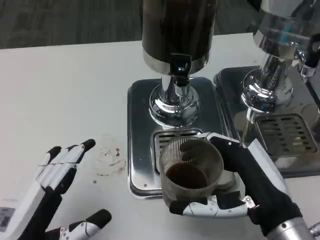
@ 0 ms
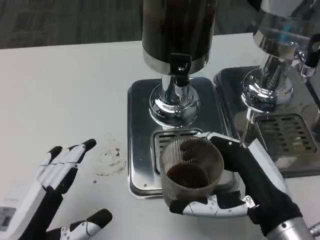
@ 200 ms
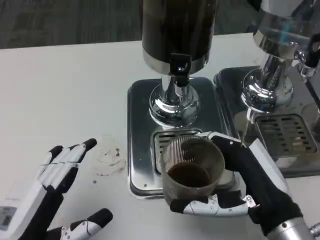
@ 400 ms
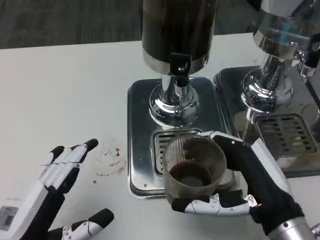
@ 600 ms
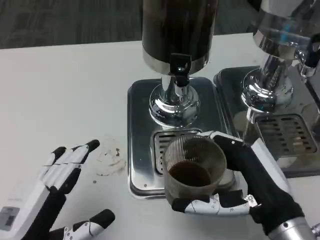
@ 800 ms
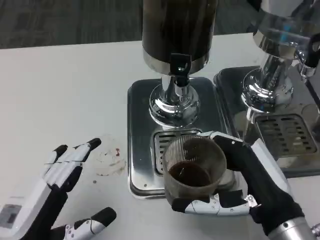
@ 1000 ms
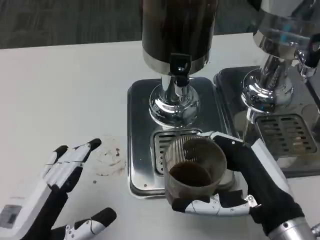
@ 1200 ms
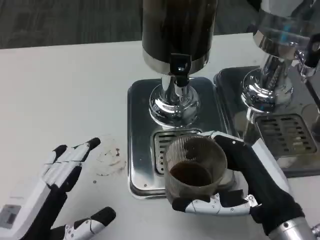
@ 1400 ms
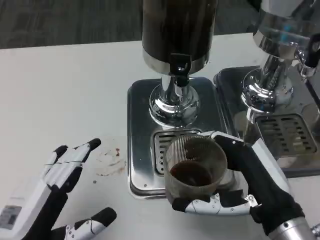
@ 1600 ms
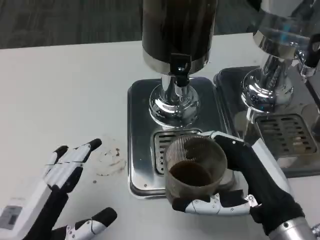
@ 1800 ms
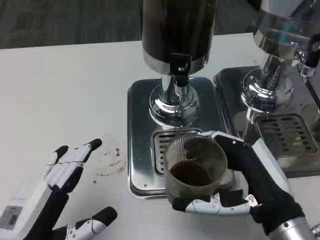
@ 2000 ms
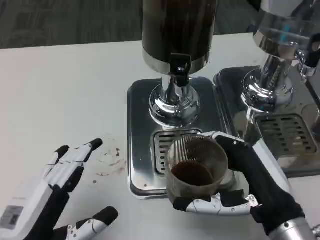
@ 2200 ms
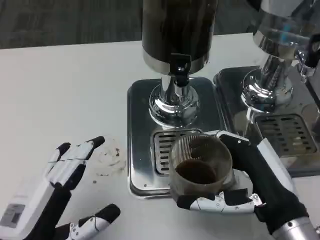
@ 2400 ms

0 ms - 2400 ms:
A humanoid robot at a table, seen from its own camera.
Task of the whole recording: Grasp the cup under the faucet to collect the drink, then remove the cup.
0 ms - 2400 ms: Both hands stay about where they are.

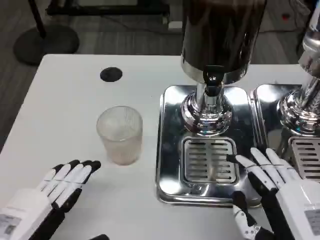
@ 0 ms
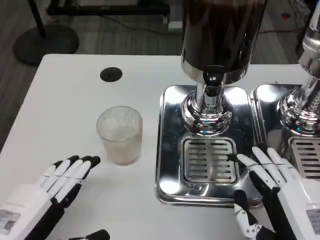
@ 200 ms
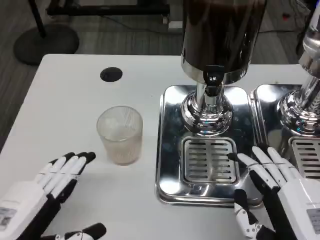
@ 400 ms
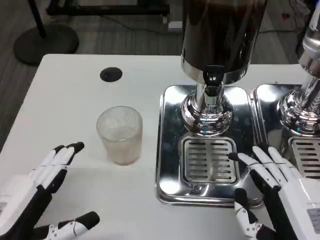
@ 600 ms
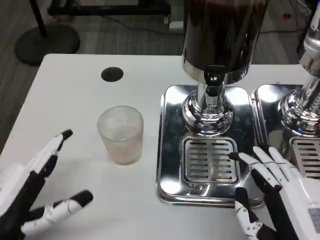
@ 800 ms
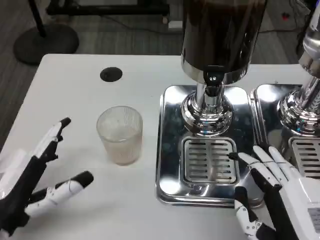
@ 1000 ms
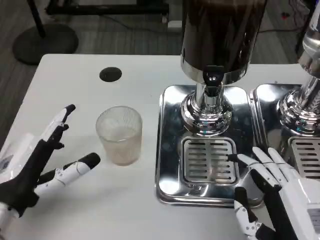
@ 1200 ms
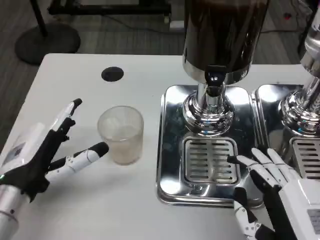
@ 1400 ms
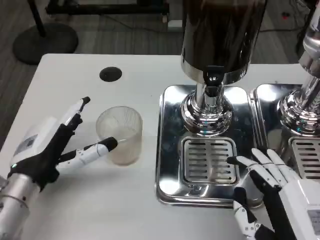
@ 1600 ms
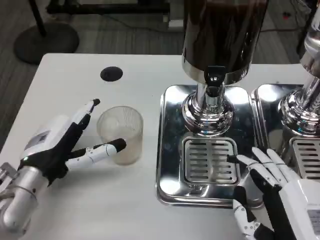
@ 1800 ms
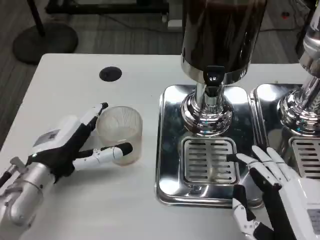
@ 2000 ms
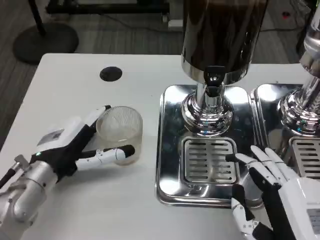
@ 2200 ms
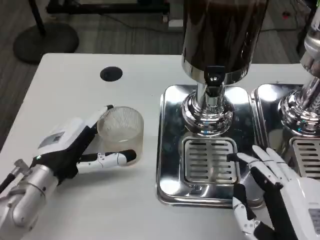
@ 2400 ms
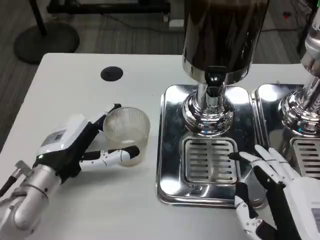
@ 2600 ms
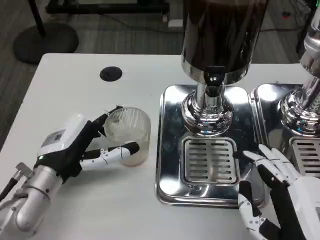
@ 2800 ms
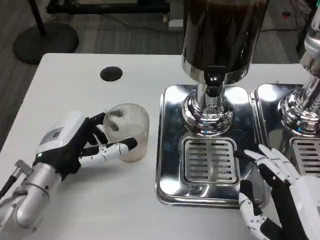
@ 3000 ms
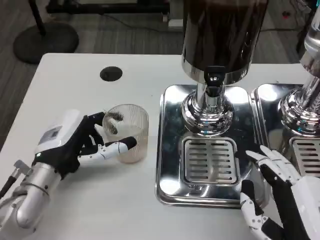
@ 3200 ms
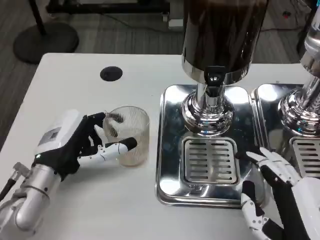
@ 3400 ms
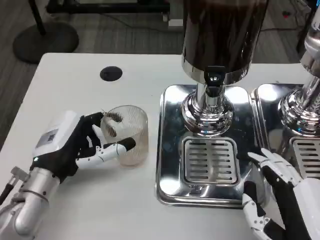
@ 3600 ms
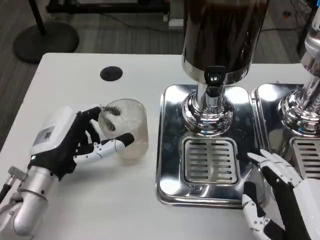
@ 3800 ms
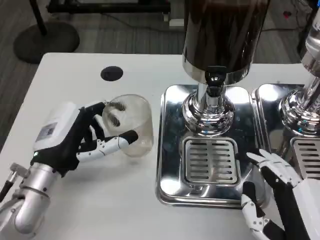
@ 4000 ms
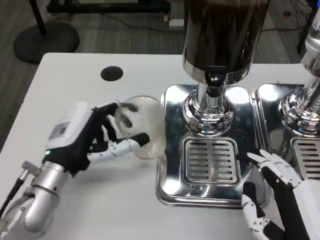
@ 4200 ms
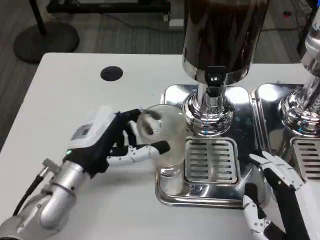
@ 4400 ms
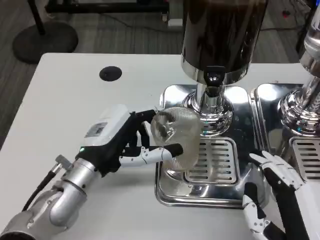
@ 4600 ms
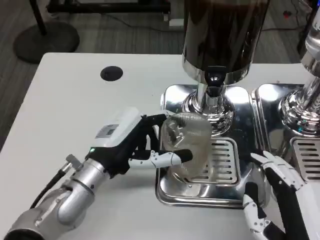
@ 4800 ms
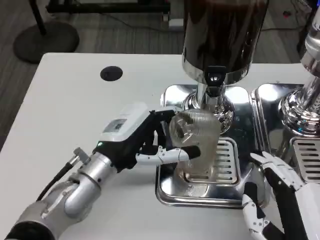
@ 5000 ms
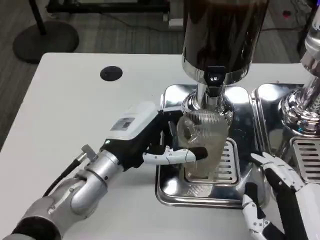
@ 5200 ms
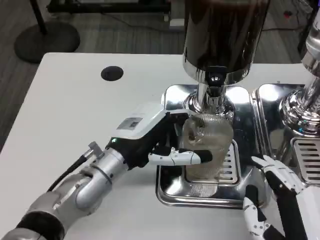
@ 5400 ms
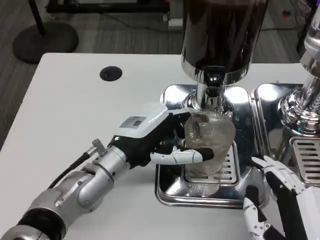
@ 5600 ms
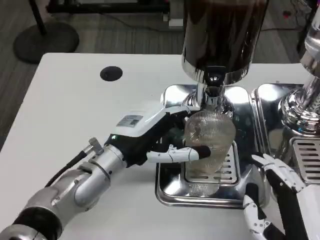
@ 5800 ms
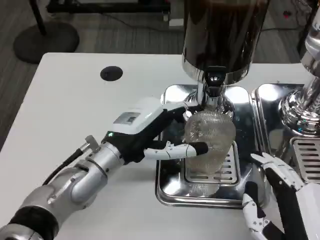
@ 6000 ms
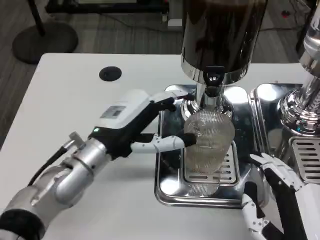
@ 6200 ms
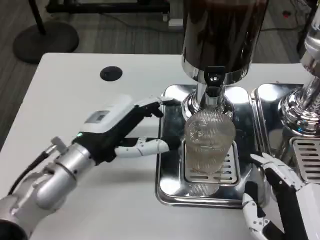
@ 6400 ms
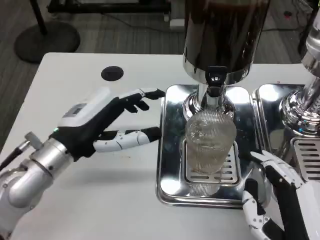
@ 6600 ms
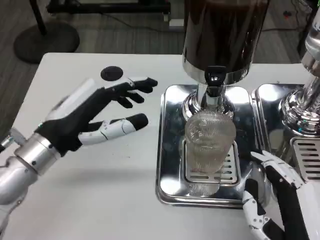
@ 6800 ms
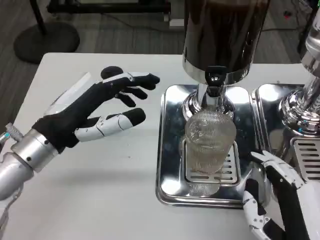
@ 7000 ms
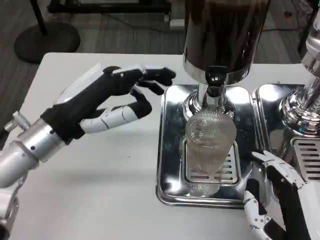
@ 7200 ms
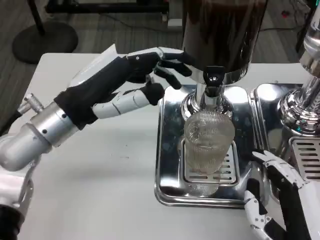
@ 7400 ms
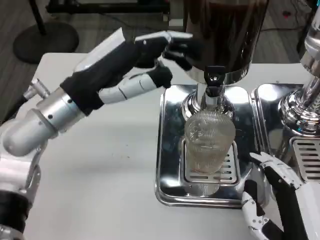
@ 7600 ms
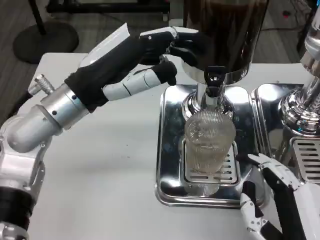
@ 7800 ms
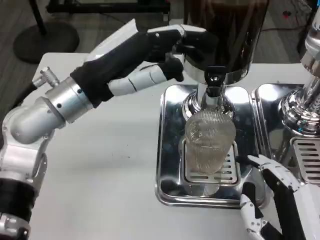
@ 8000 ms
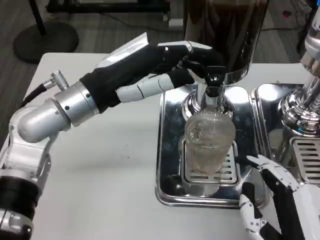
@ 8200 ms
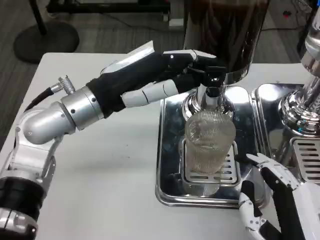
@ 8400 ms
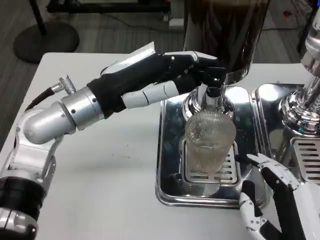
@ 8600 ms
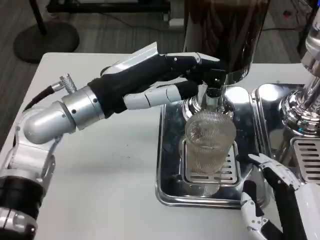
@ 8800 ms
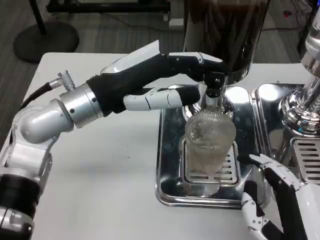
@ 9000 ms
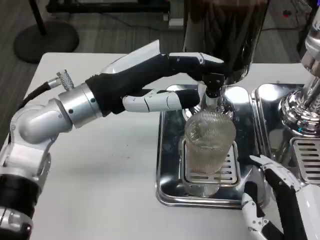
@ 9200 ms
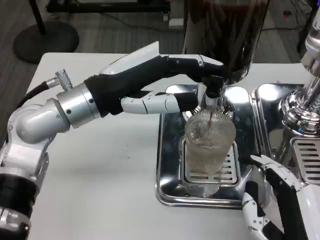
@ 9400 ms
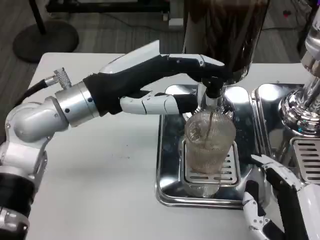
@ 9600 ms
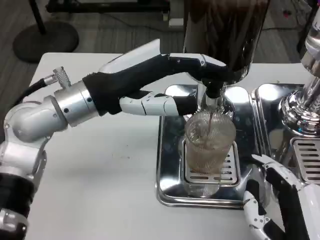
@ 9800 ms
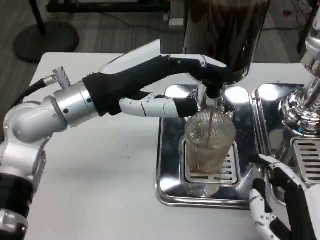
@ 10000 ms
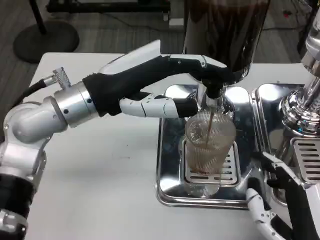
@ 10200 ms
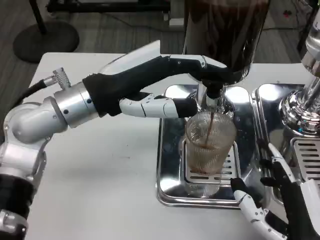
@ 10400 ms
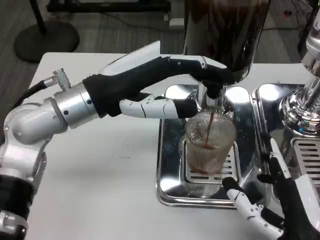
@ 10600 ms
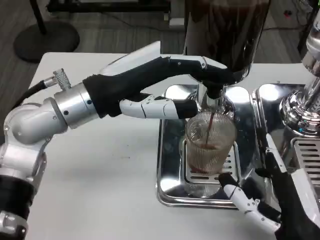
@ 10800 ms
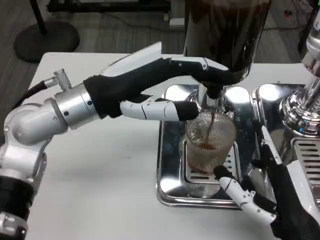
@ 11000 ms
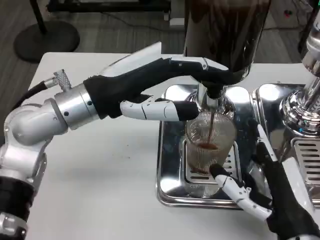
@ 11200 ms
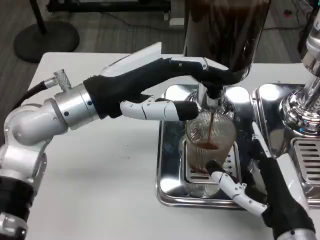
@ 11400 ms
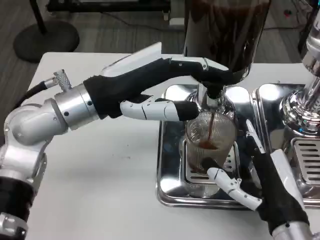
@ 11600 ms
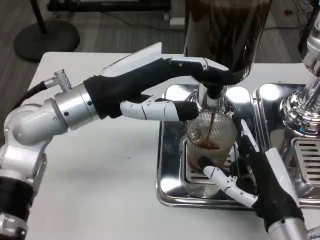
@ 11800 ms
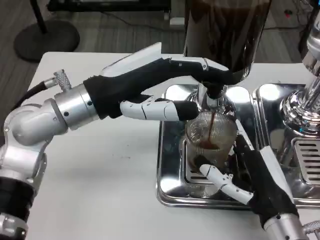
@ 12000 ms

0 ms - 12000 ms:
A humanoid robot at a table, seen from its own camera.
Task of the whole recording: Grasp the cup under the faucet to collect the drink, then remove the cup.
0 ms - 1600 ms: The left hand moves forward, roughly 10 cm.
1600 ms - 3000 ms: The hands make only small movements.
4400 ms - 6000 ms: The left hand changes place by some 5 cm.
6000 ms - 7600 ms: The left hand is displaced upward by roughly 10 cm.
9000 ms - 10400 ms: The hands stay close to where they were, moving slightly.
10400 ms - 12000 ms: The right hand moves forward, approximately 5 cm.

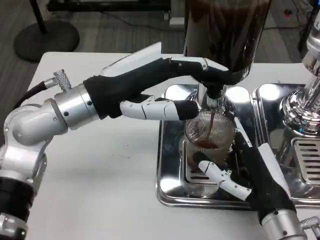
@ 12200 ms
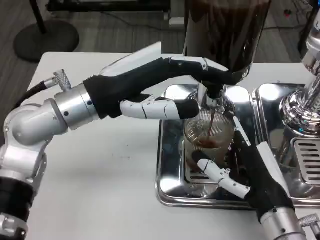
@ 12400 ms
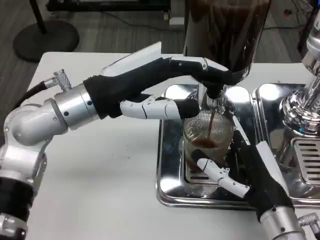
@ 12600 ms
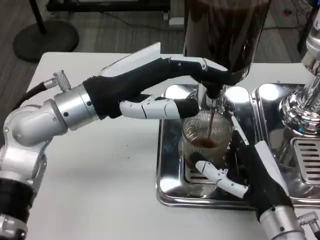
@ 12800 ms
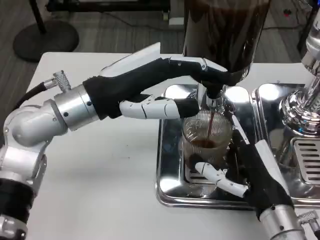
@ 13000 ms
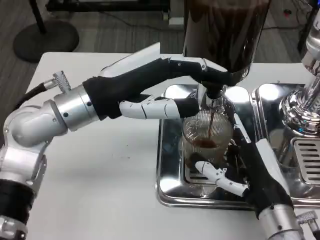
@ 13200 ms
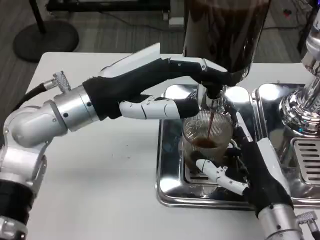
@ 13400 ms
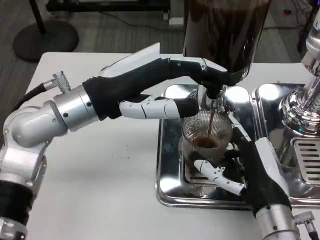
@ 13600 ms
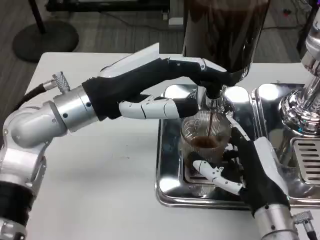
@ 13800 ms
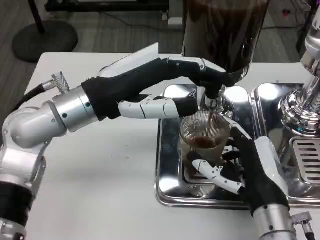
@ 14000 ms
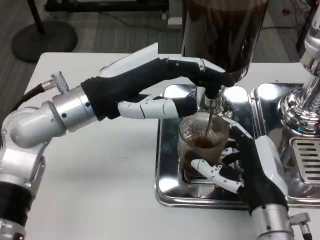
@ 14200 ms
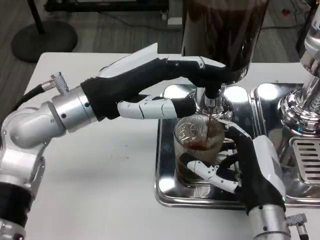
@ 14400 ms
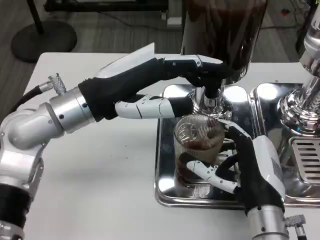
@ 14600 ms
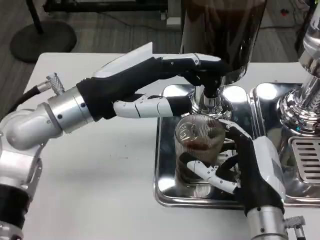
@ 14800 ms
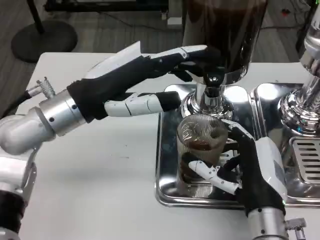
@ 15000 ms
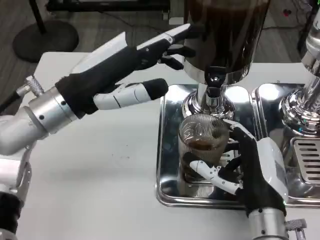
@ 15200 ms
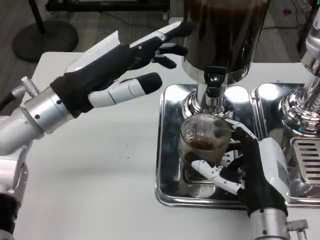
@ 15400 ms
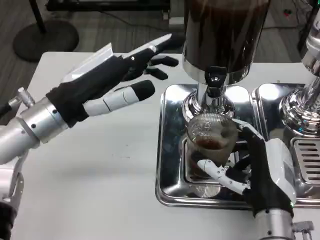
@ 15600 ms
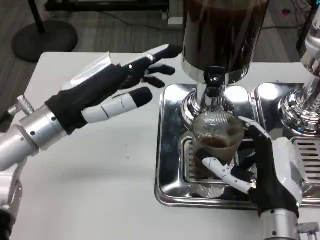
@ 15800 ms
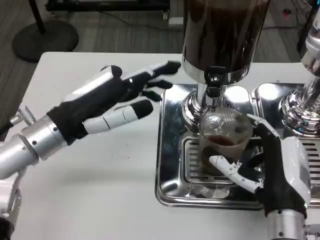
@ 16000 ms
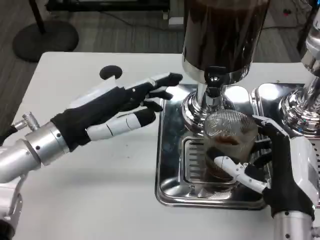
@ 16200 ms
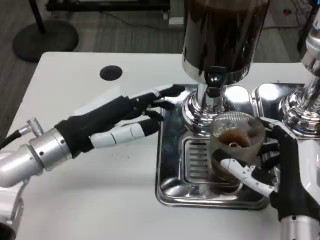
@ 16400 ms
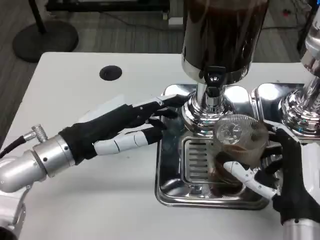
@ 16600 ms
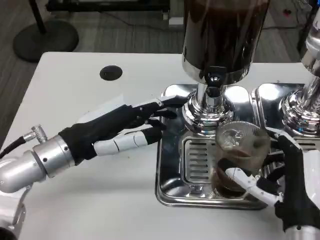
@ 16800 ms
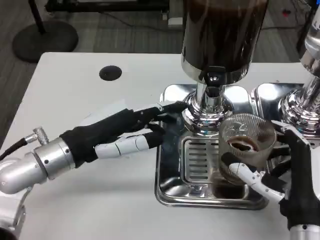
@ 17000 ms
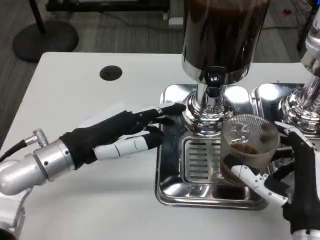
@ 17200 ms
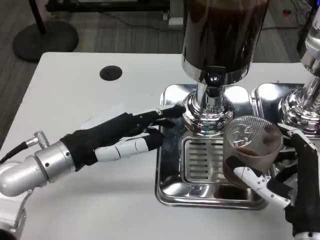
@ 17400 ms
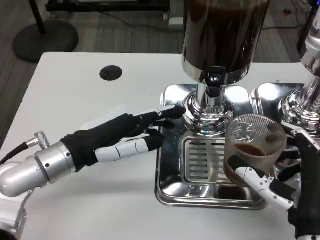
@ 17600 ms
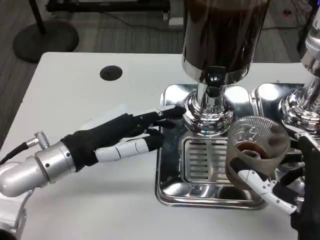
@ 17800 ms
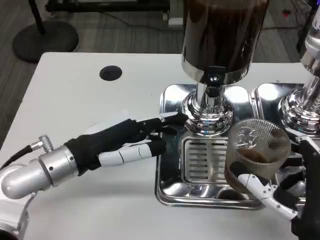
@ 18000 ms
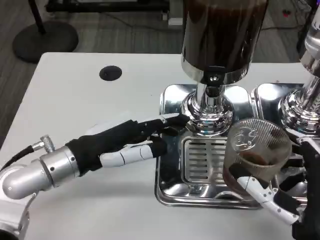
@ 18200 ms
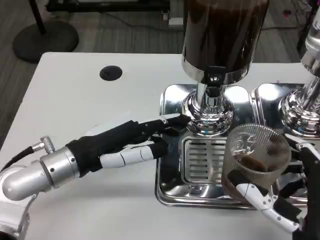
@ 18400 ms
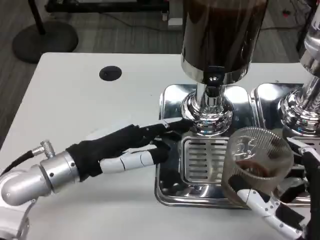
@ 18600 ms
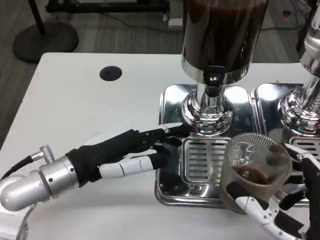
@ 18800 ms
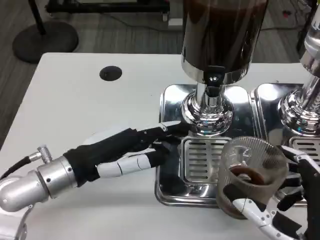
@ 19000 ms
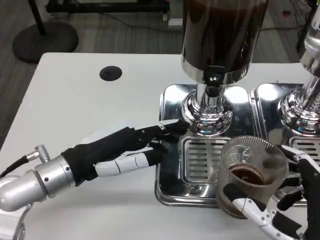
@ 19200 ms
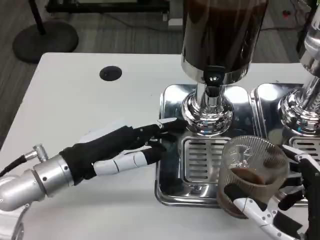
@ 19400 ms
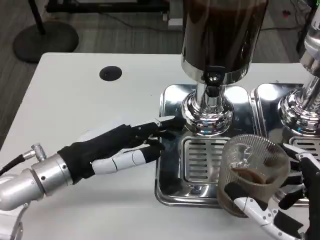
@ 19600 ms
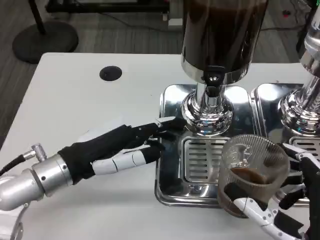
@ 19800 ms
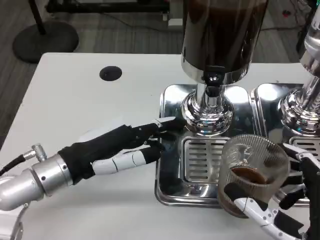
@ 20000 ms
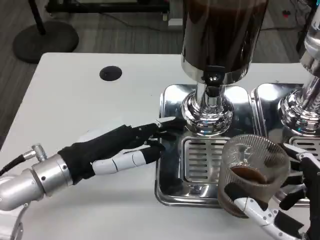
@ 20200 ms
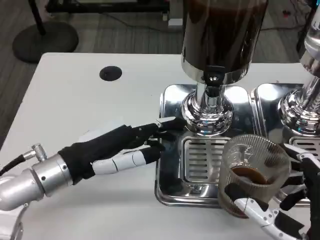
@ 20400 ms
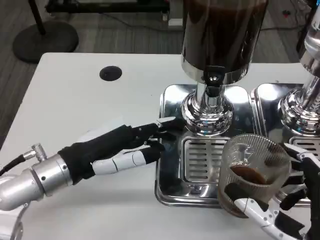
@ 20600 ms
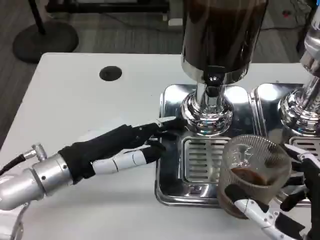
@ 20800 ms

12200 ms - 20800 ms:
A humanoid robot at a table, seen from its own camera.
Task of the whole recording: Grasp the cup under the faucet to collect the drink, then remove the cup.
12200 ms - 13600 ms: The hands stay close to where they were, moving slightly.
15000 ms - 16600 ms: The left hand travels downward by about 5 cm.
19400 ms - 20800 ms: Neither hand changes place.
